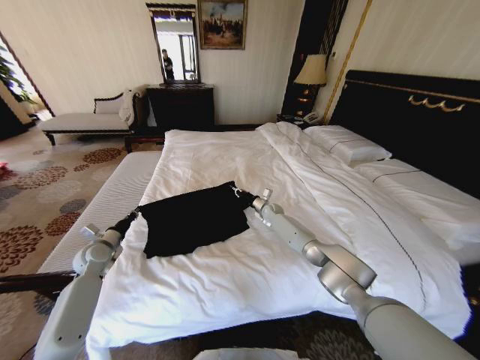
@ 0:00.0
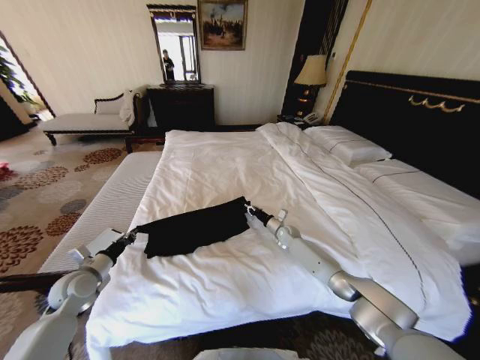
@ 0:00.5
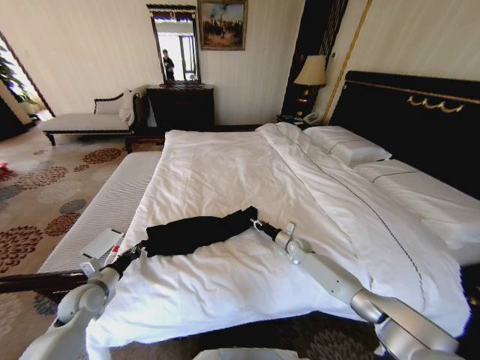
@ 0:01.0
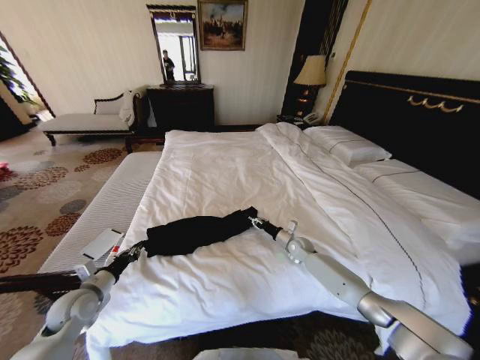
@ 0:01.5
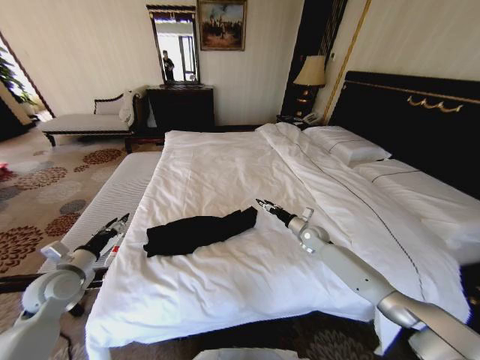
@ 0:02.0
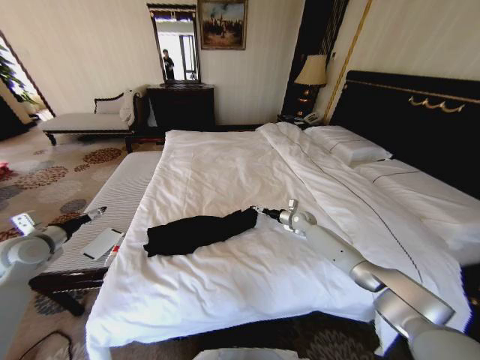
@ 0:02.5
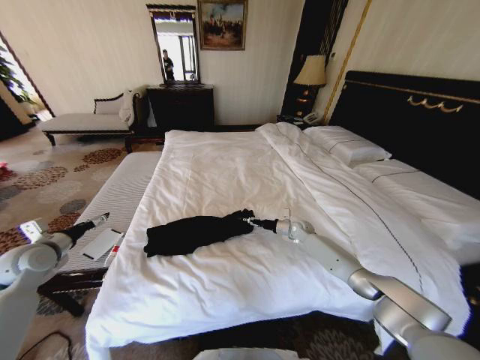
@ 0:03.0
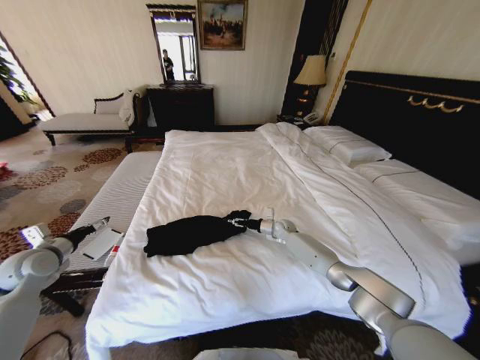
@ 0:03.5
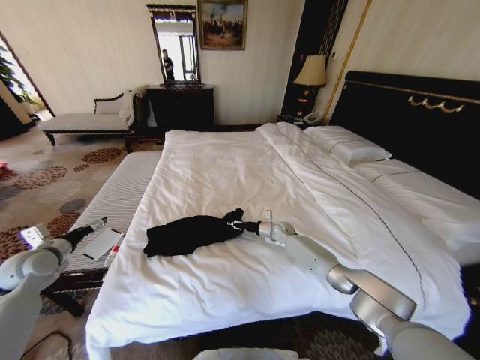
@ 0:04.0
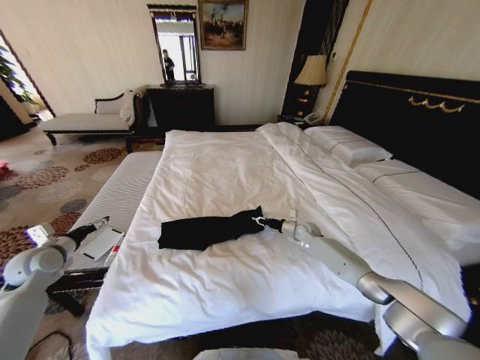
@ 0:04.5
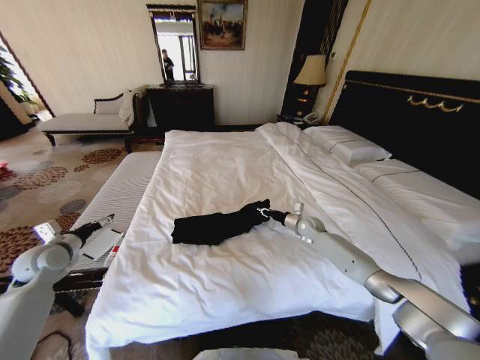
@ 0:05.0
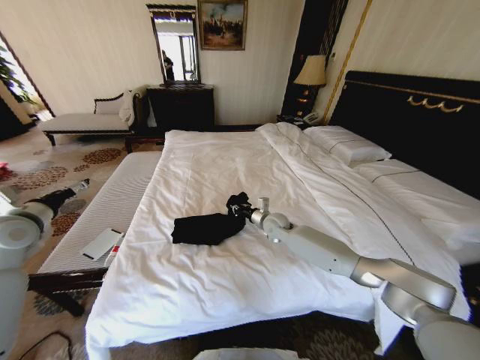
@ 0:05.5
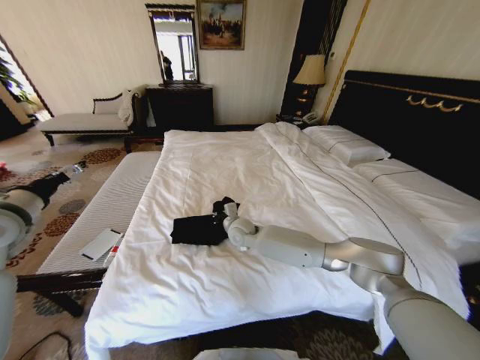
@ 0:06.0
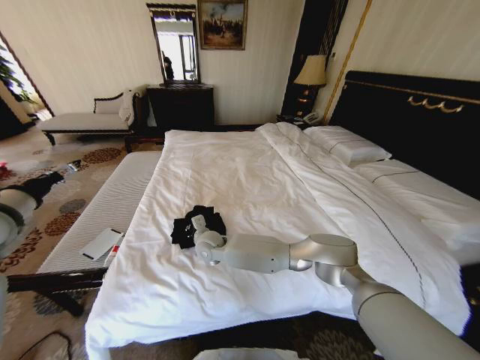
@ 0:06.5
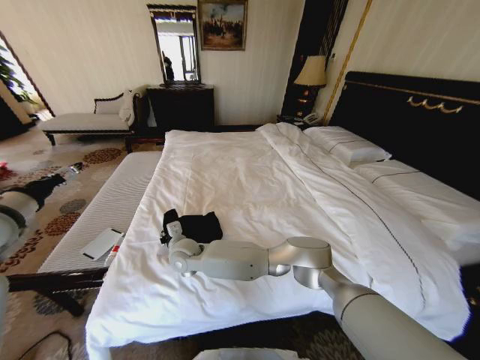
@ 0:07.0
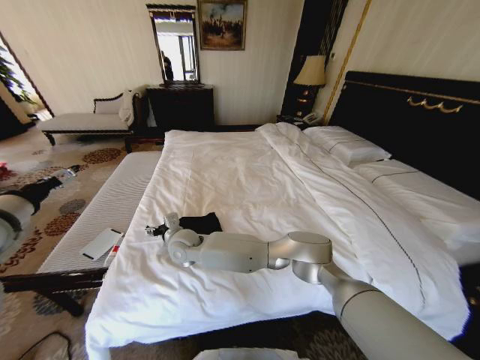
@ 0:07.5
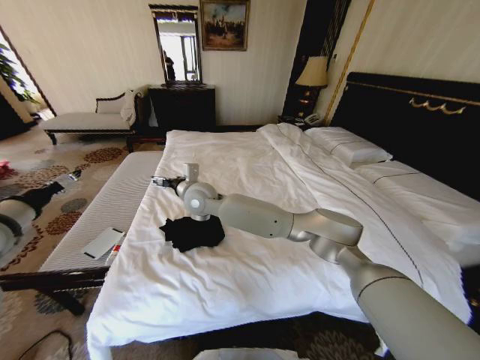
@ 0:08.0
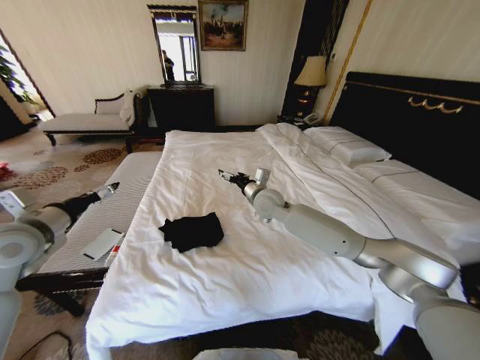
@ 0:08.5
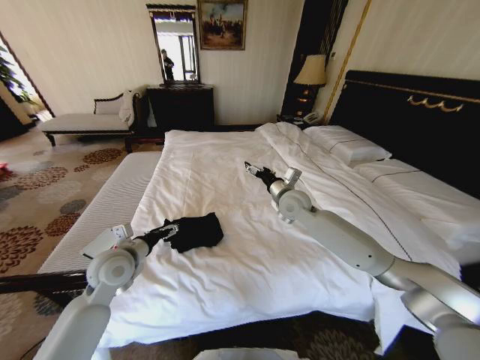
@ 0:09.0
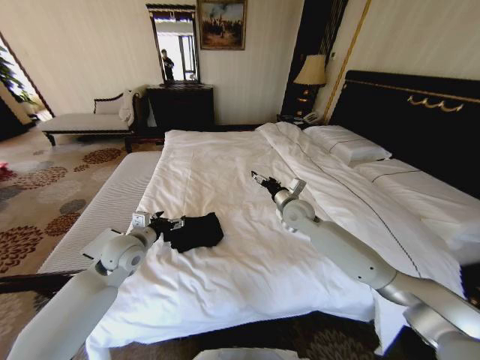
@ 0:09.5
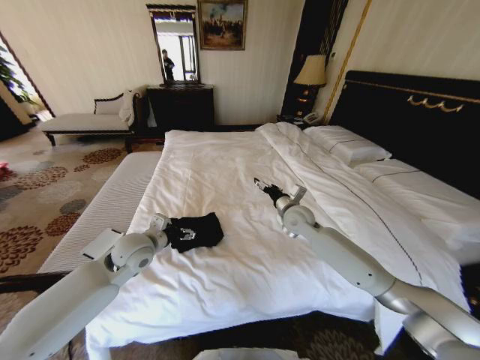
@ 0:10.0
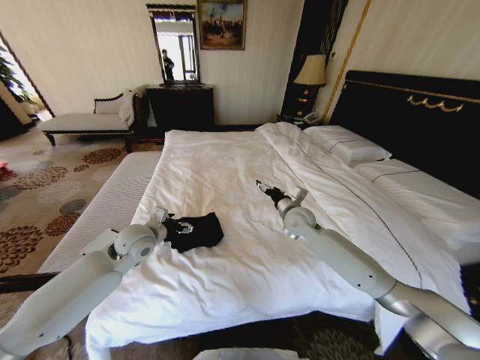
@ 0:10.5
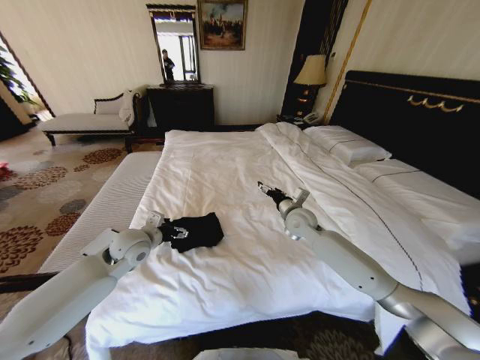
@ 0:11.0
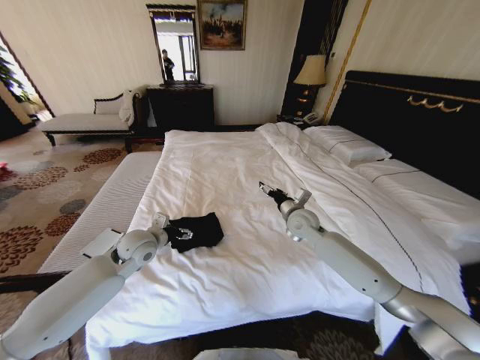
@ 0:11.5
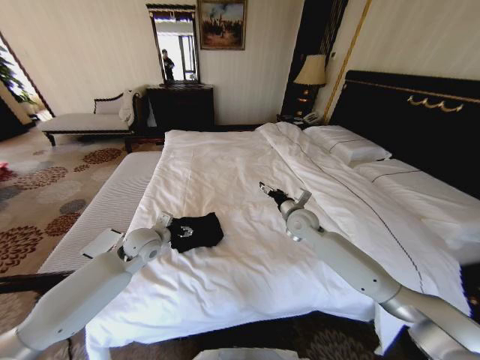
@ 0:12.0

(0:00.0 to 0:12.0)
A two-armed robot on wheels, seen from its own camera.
Task of the whole recording: Fold the clothes on the bed.
0:00.0 - 0:02.0: The right gripper heads backward and to the right, covering about 20 cm, and opens. The left gripper shifts about 10 cm backward and upward, and opens up.
0:02.0 - 0:04.0: The right gripper goes about 10 cm to the left, forward and downward. The left gripper is displaced to the left by approximately 5 cm, and opens up.
0:04.0 - 0:06.0: The left gripper is displaced upward by approximately 15 cm. The right gripper travels to the left, upward and backward by roughly 25 cm, and closes its fingers.
0:06.0 - 0:08.0: The right gripper moves upward and to the left, approximately 20 cm, and opens.
0:08.0 - 0:10.0: The left gripper shifts some 25 cm to the right and downward; the right gripper is displaced to the right by roughly 30 cm.
0:10.0 - 0:12.0: The grippers make only small movements.

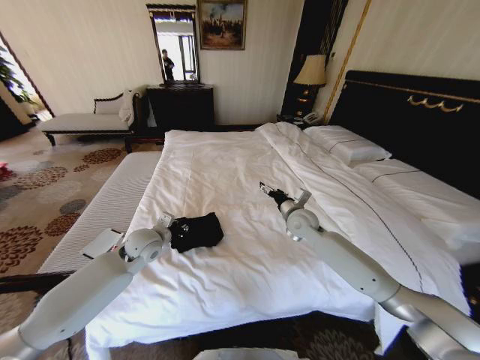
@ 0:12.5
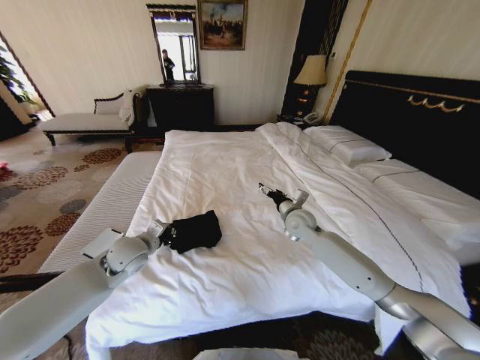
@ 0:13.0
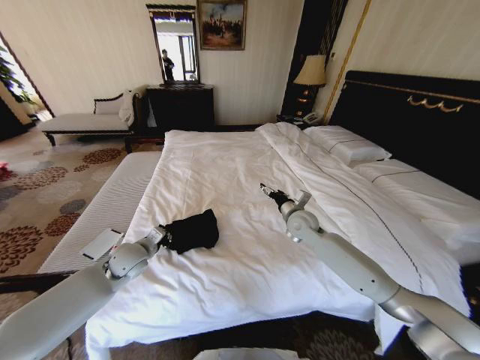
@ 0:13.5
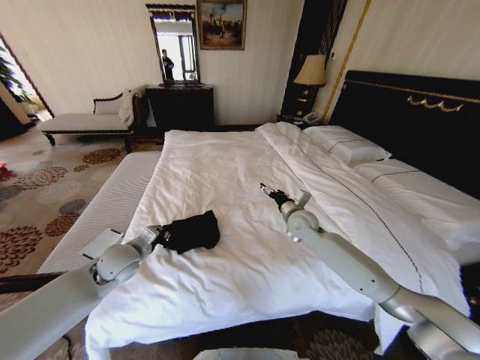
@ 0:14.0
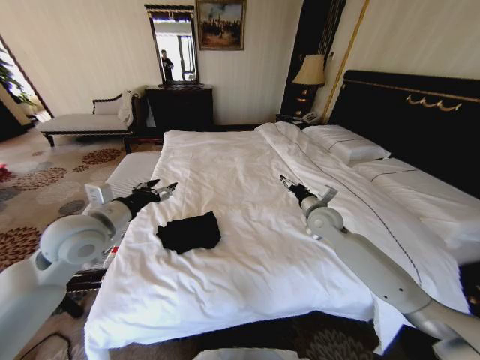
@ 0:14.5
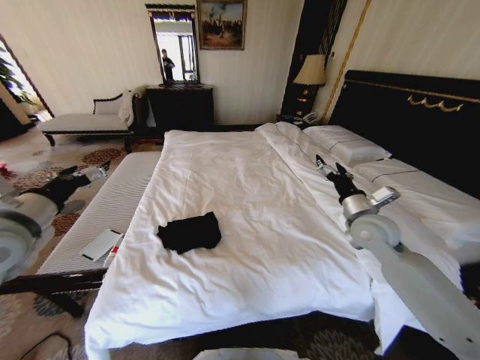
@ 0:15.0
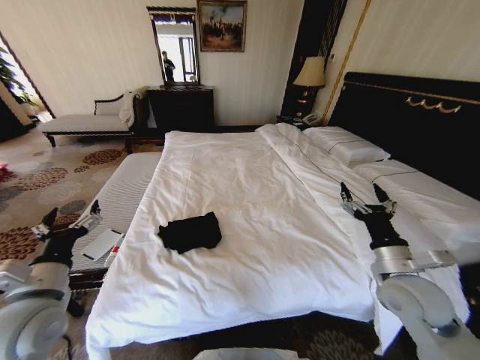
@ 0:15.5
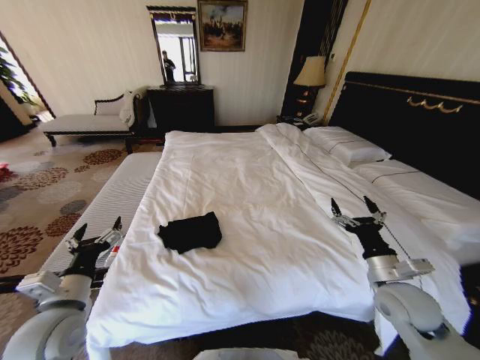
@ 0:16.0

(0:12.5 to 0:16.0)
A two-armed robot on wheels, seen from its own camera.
Task of the whole recording: Fold the clothes on the bed.
0:12.5 - 0:14.5: The left gripper is displaced upward and backward by approximately 15 cm, and closes, then opens again, while the right gripper moves to the right, roughly 5 cm.
0:14.5 - 0:16.0: The left gripper moves backward and downward, approximately 20 cm; the right gripper goes roughly 25 cm backward and to the right.
